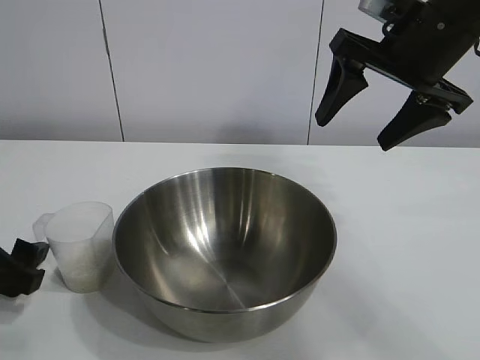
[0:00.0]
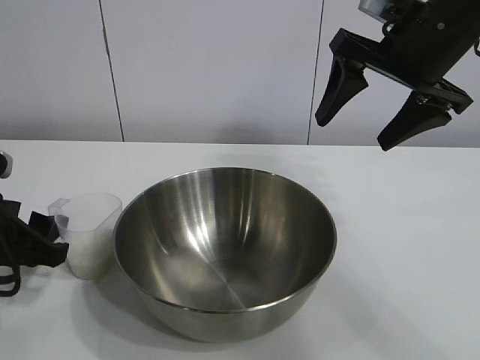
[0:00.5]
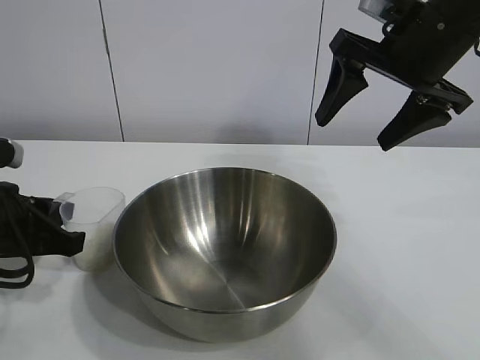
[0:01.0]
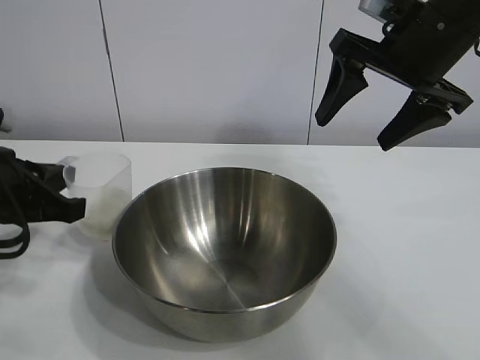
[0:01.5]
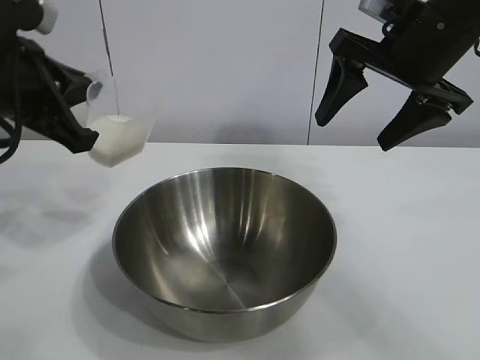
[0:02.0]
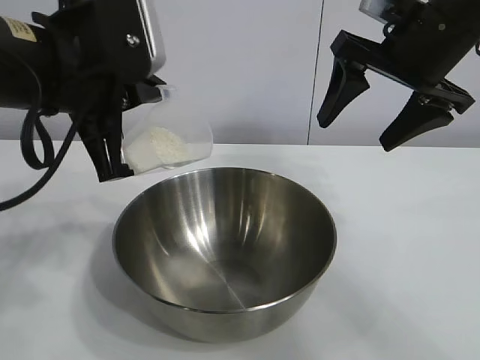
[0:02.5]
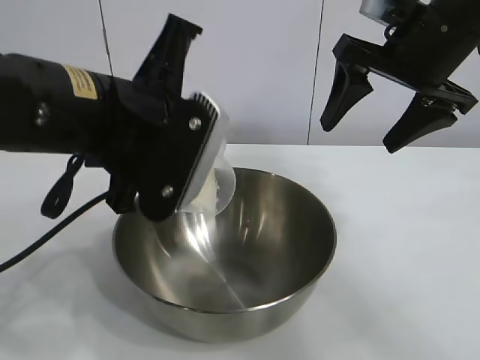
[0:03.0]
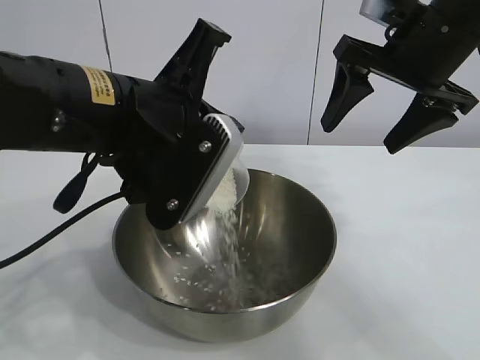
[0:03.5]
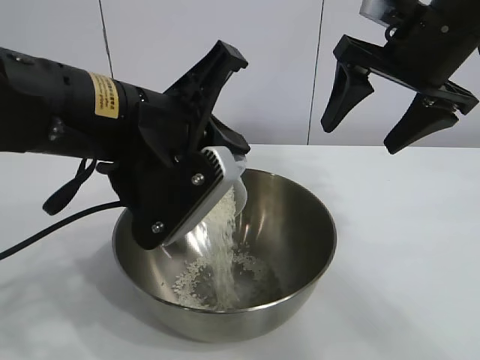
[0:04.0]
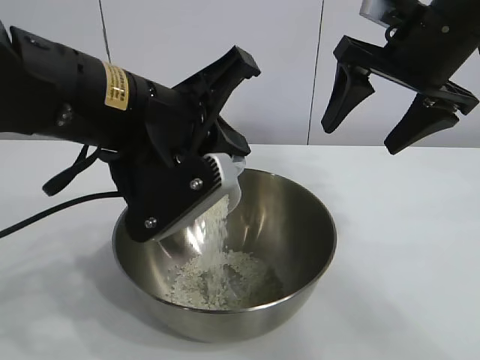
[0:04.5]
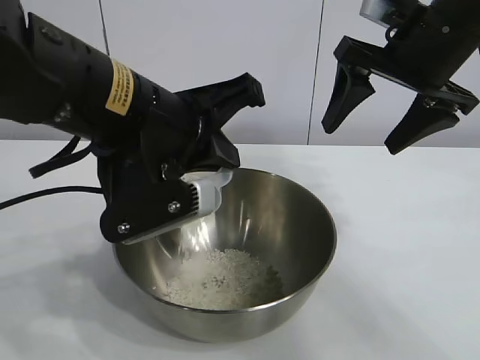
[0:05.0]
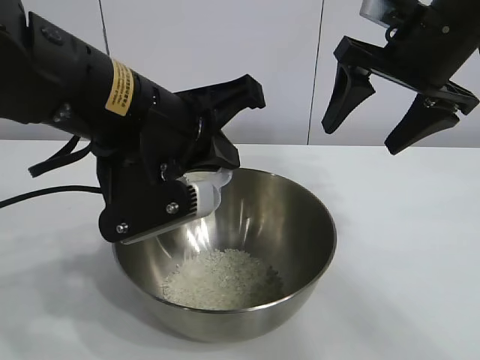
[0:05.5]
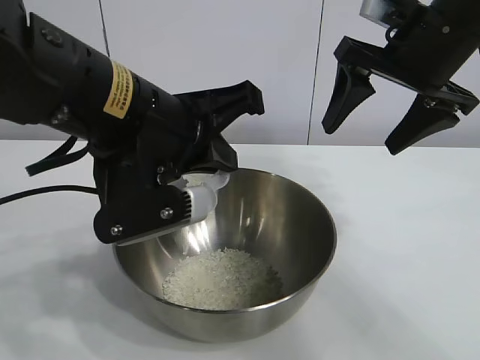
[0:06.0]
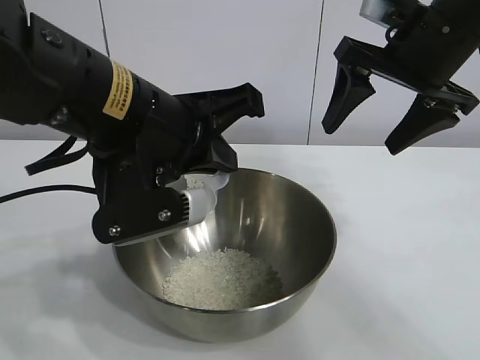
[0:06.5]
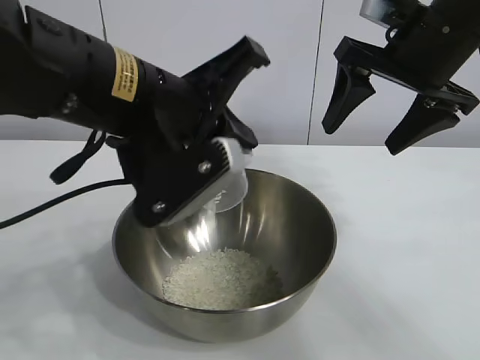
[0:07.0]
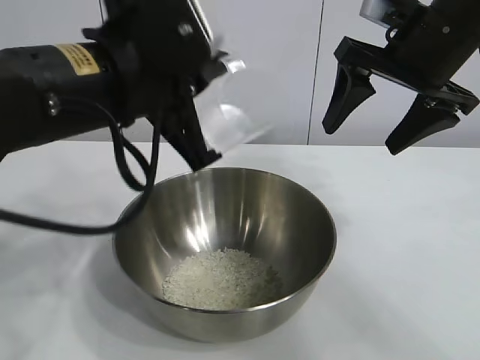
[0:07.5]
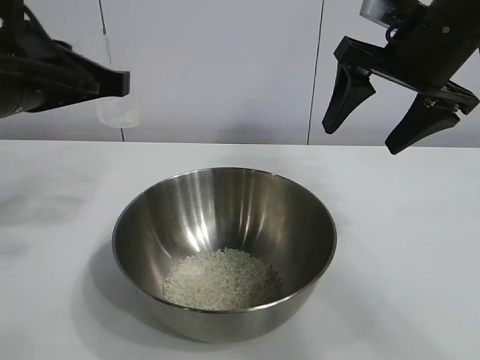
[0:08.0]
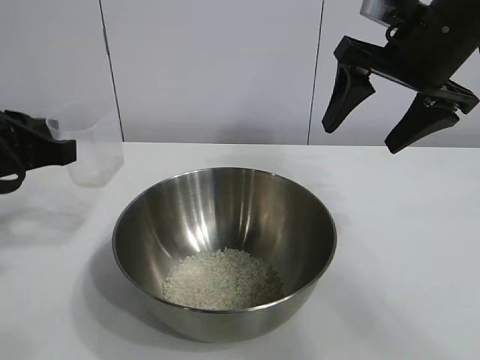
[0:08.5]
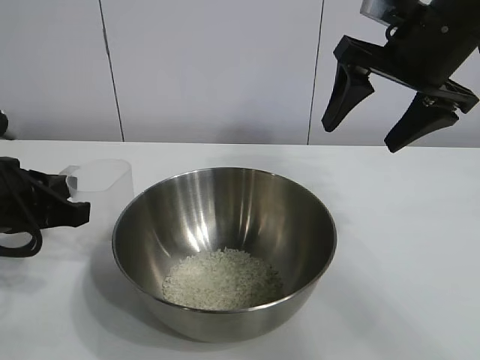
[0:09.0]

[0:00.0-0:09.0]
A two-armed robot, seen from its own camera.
Task of the whole recording: the right gripper grasp the rice container and place it in the center of the table, the left gripper grasp the rice scoop and pour the rice into the rice container.
Step, 0:01.5 to 0:06.5: Pour the rice from the cup into the bowl with the left gripper.
